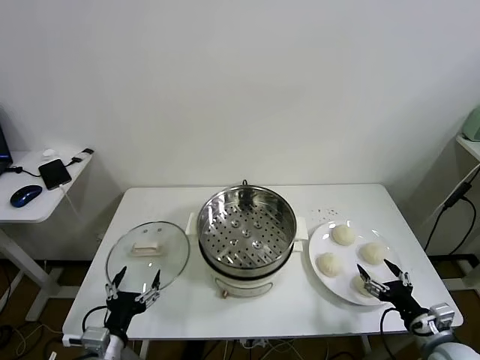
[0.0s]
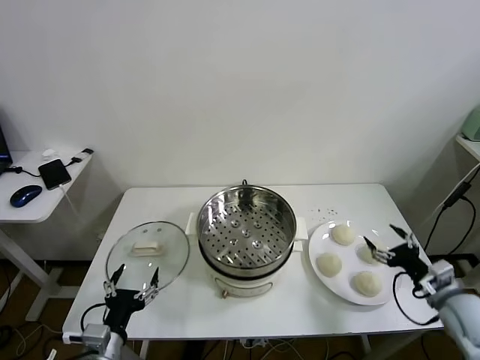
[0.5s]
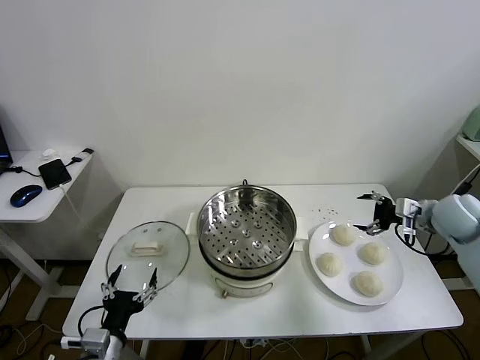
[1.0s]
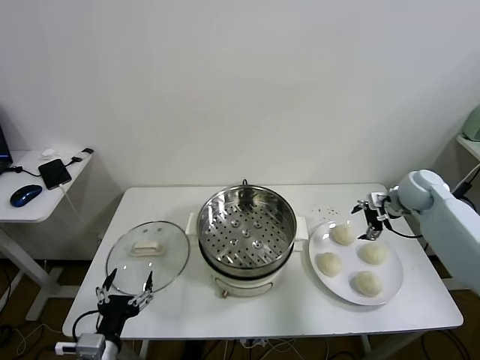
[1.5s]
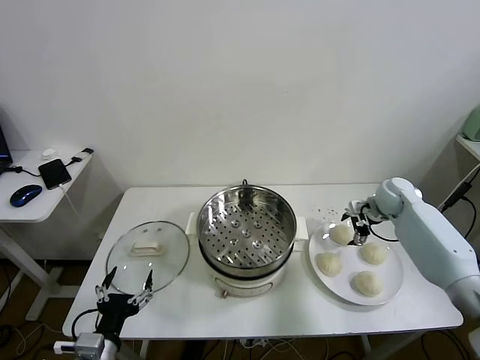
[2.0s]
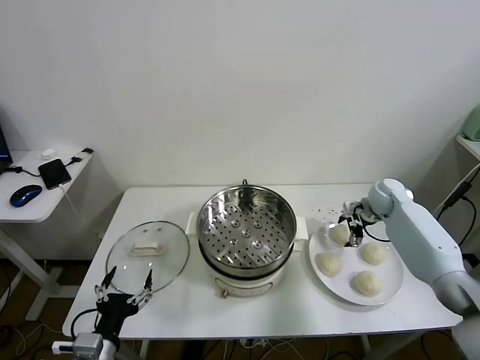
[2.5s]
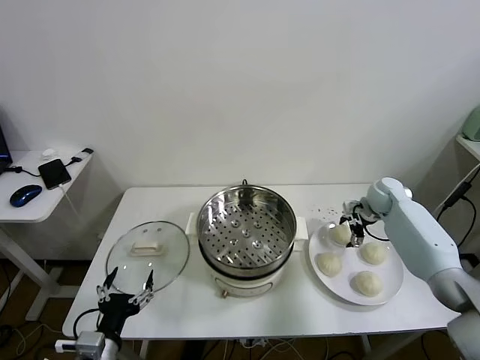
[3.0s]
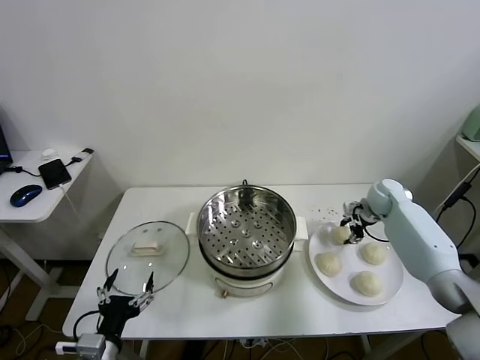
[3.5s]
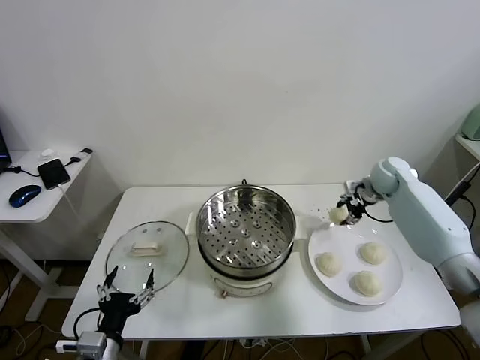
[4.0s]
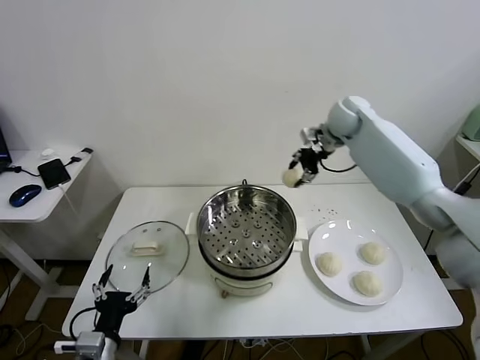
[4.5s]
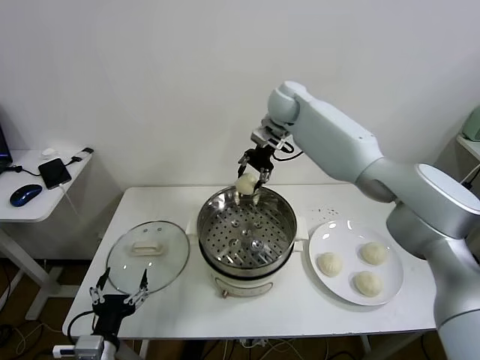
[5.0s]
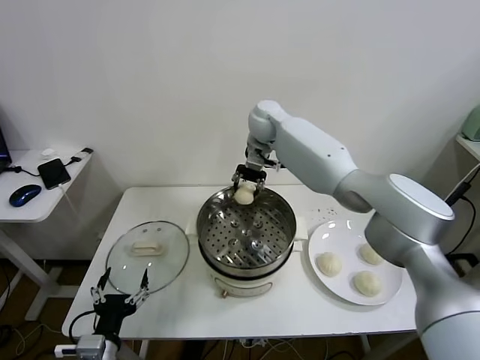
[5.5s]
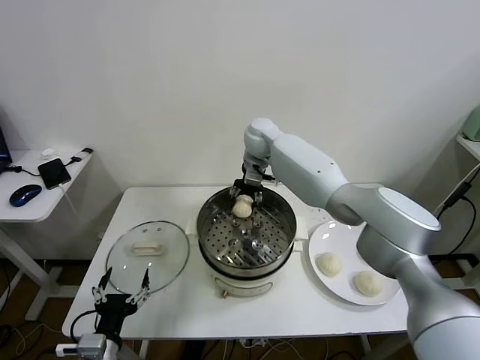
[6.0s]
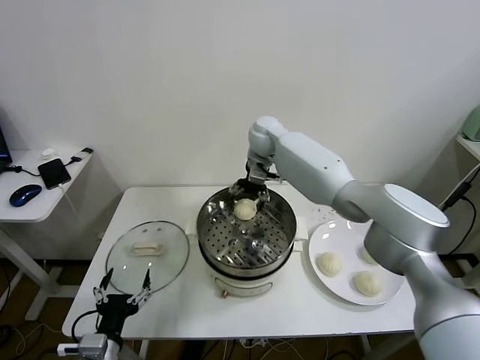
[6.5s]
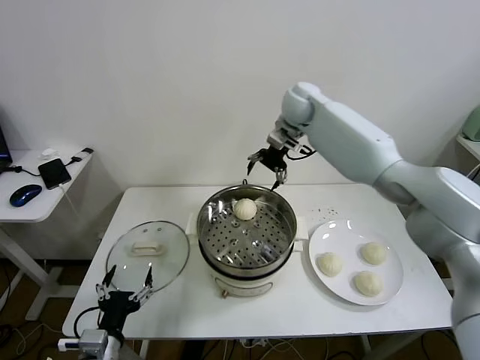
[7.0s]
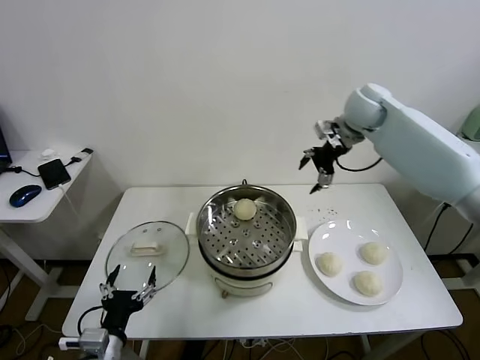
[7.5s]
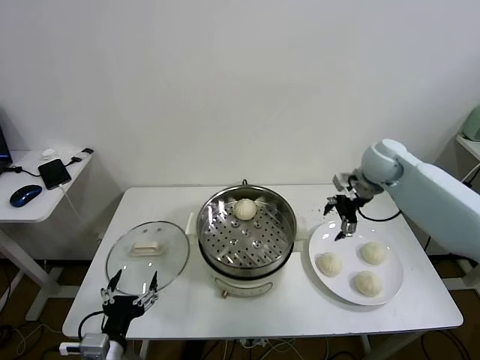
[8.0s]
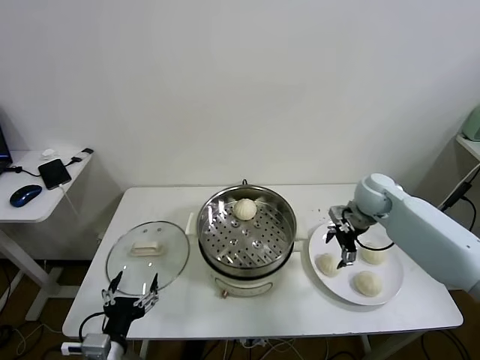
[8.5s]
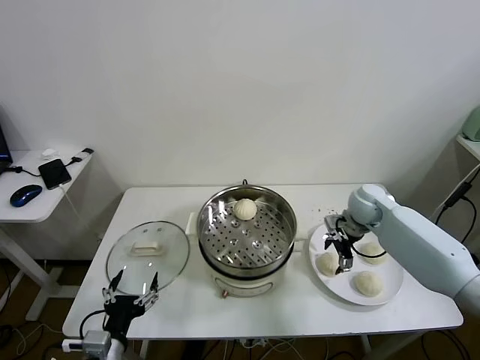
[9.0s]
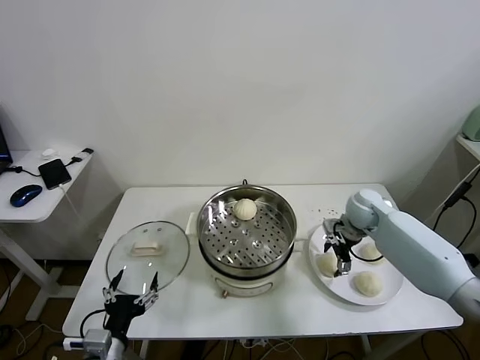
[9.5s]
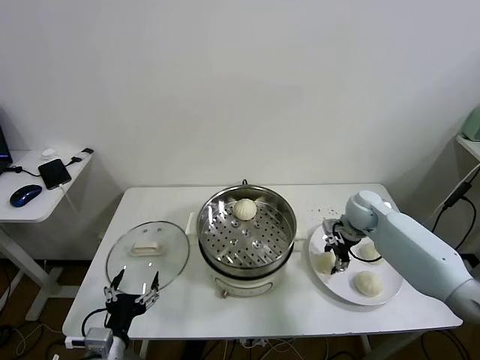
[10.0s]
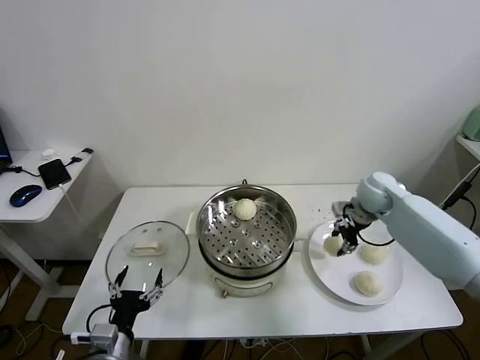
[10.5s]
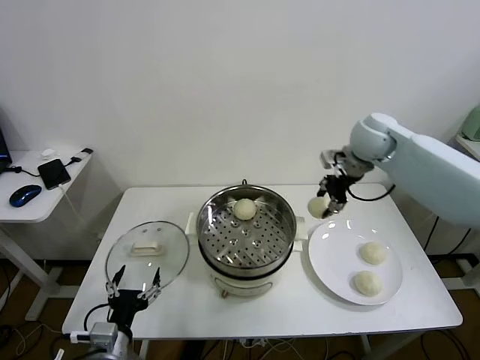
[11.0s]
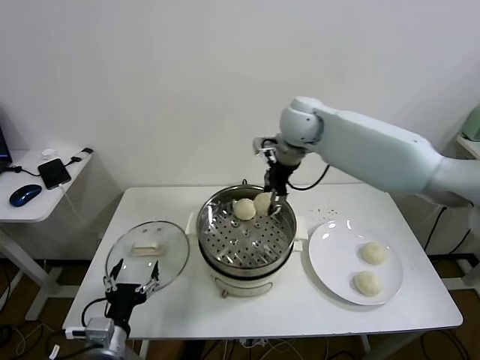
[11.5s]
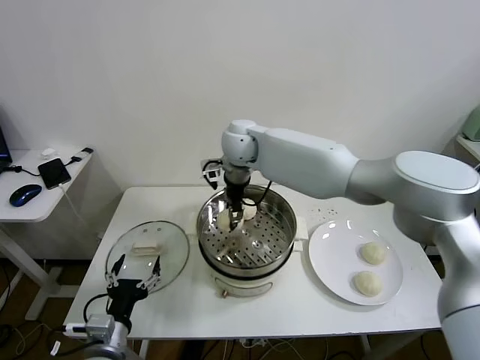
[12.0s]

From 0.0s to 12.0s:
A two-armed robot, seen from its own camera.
Task of the whole recording: take steamed baozi put them in steamer.
Step, from 0.0s to 3.0s: Grasp the baozi in the plate with right gripper.
Step, from 3.5s to 6.0s: Place the baozi on the steamer with right gripper.
Step, from 6.5s to 9.5s: Grasp the baozi in the plate with right gripper.
From 2.0s to 4.0s: The right gripper travels upward by approximately 10 cm, and closes up.
From 4.0s to 6.0s: The right gripper is displaced to the left by some 30 cm.
From 6.0s to 8.0s: The right gripper travels to the right by some 30 cm, and opens.
From 8.0s to 10.0s: The right gripper travels downward by approximately 15 cm, and closes its fingers.
From 10.0s to 12.0s: The right gripper travels to the left and upward by roughly 40 cm.

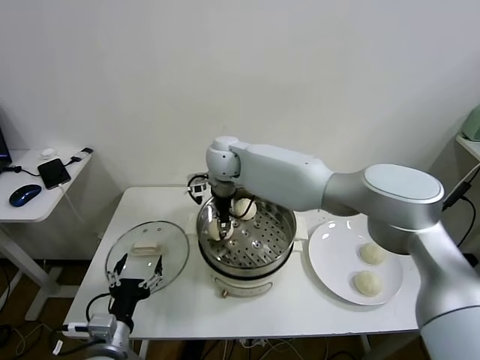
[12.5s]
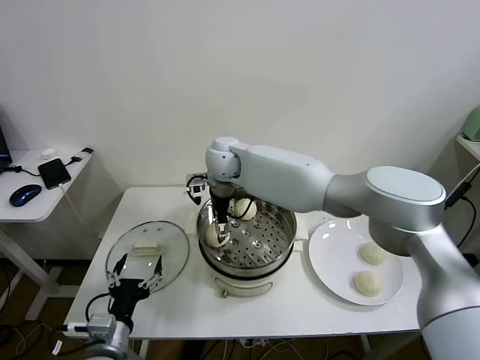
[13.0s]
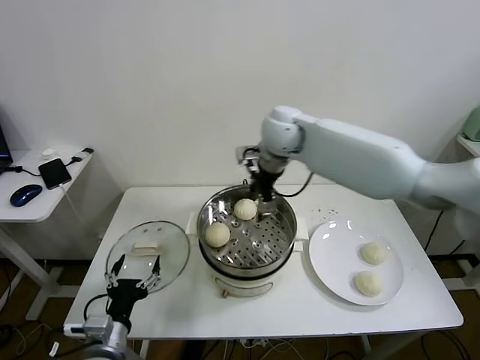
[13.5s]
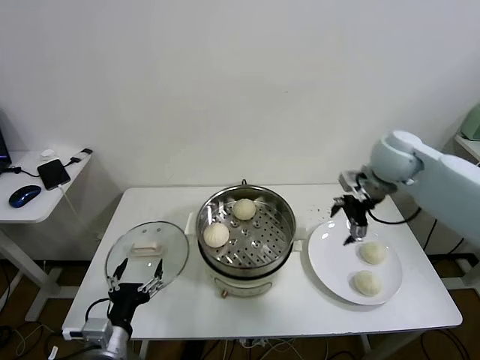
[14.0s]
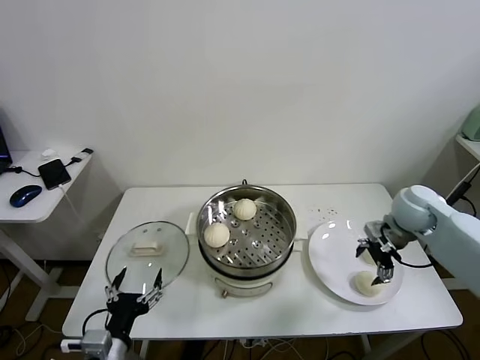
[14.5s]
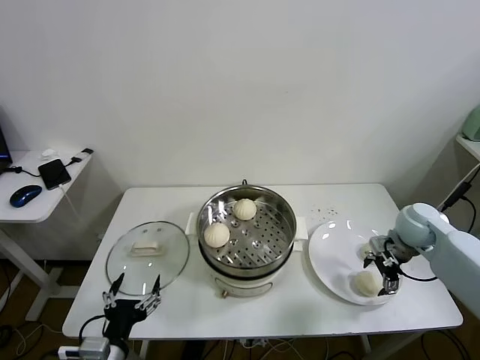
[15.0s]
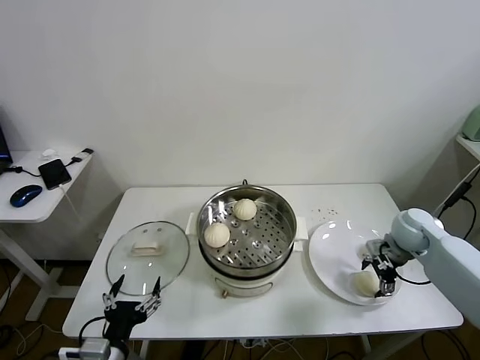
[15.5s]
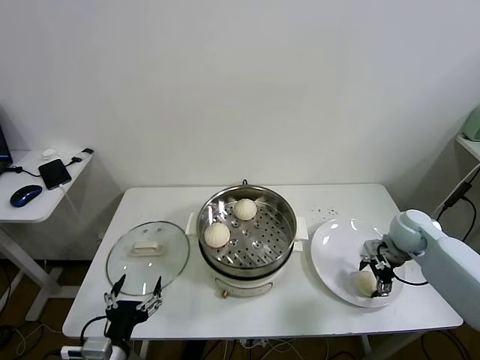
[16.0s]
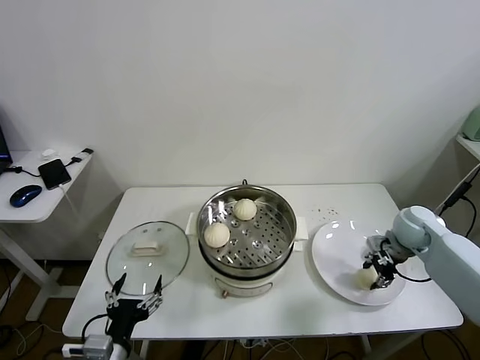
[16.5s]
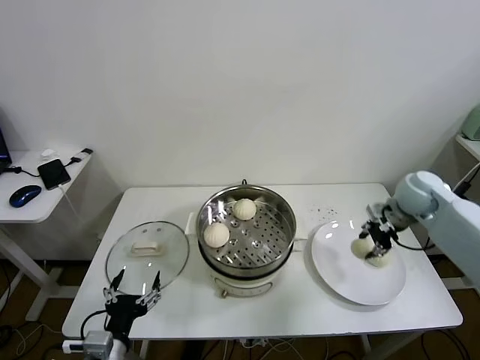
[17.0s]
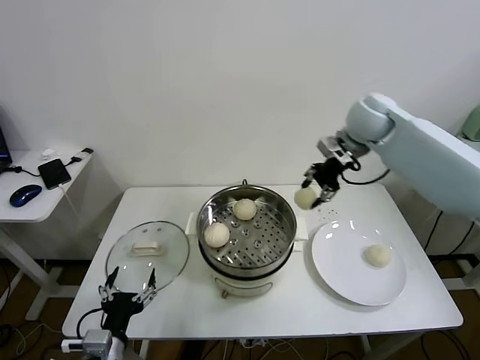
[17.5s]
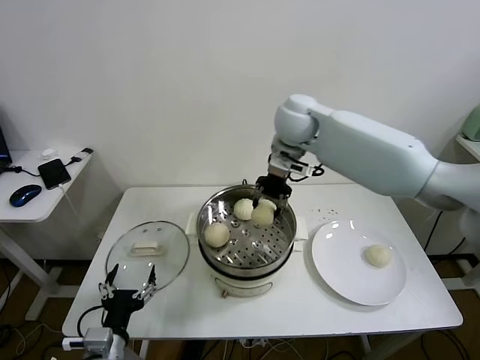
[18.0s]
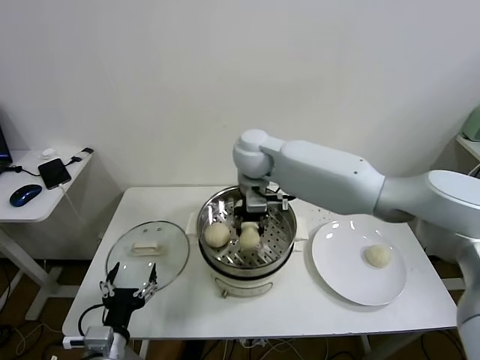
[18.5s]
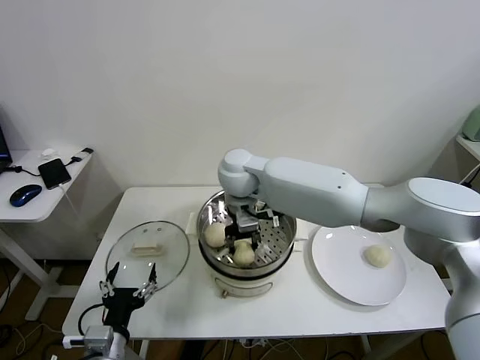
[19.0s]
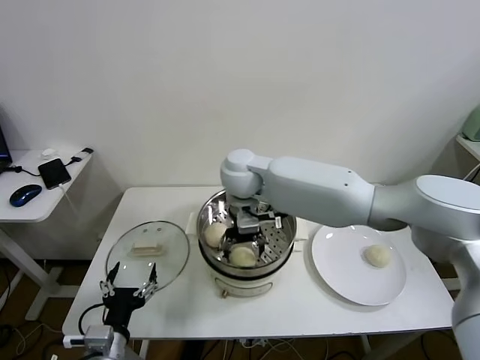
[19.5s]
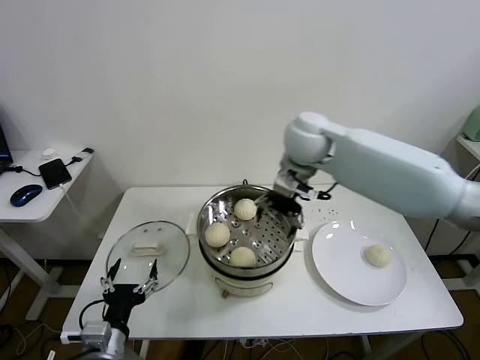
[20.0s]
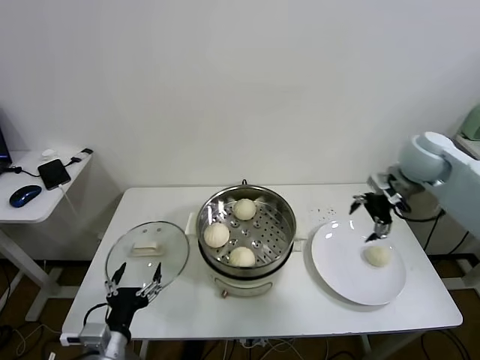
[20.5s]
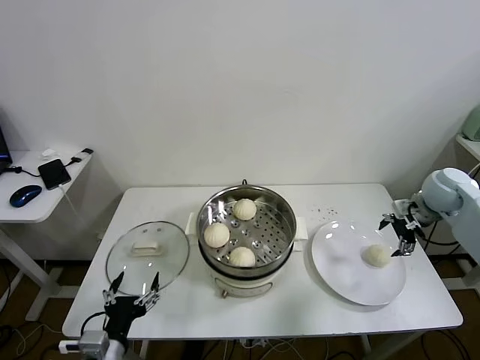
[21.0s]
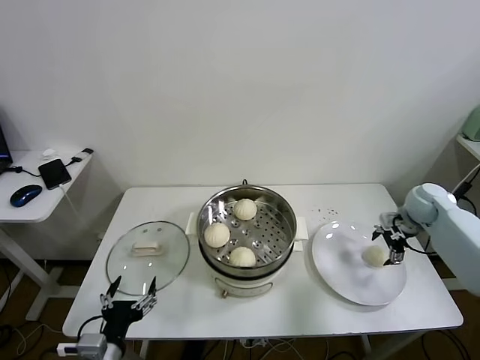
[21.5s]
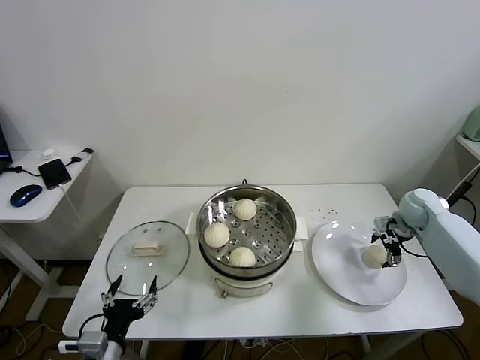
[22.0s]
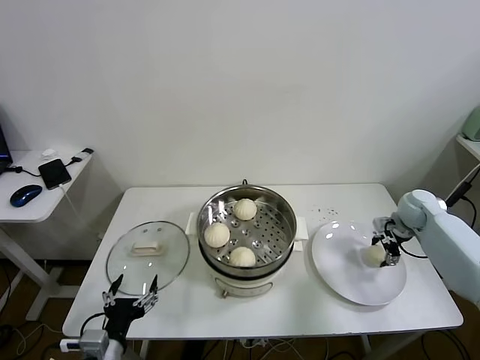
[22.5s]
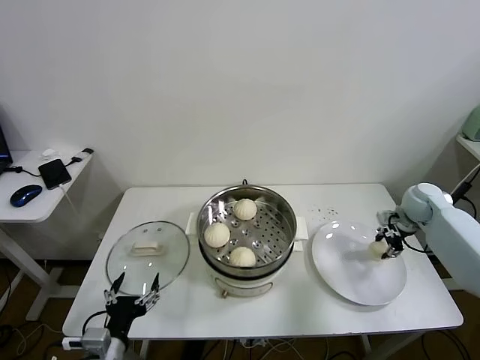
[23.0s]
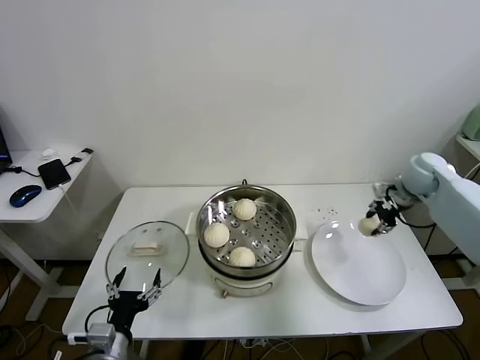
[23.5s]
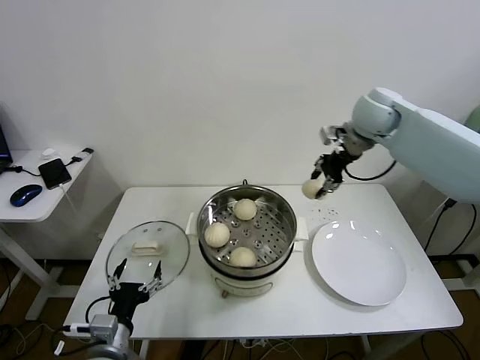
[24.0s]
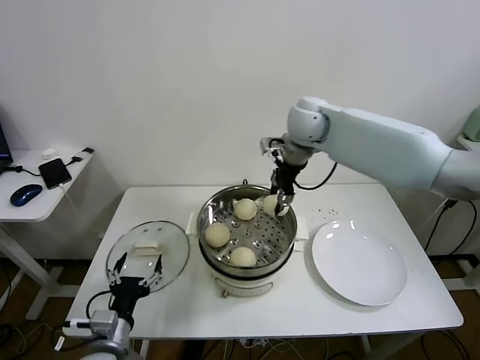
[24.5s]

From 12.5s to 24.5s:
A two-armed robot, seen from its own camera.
Task of the whole recording: take steamed baozi put them in steamer.
Step, from 13.0s to 16.0s: Grasp the baozi in the plate with right gripper.
Step, from 16.5s to 19.5s: Place the baozi on the steamer with right gripper.
Step, from 20.0s to 22.5s: Grasp the baozi in the plate with right gripper.
From 12.5s to 14.5s: The right gripper moves to the right, some 40 cm, and opens up.
From 14.5s to 16.5s: The right gripper moves downward, roughly 5 cm, and closes.
From 16.5s to 18.5s: The right gripper moves to the left and upward, about 40 cm.
From 18.5s to 20.5s: The right gripper travels to the right by some 35 cm, and opens up.
From 20.5s to 22.5s: The right gripper goes approximately 20 cm downward and to the right, and closes its fingers.
From 22.5s to 24.5s: The right gripper travels to the left and upward by about 40 cm, and closes its fingers.

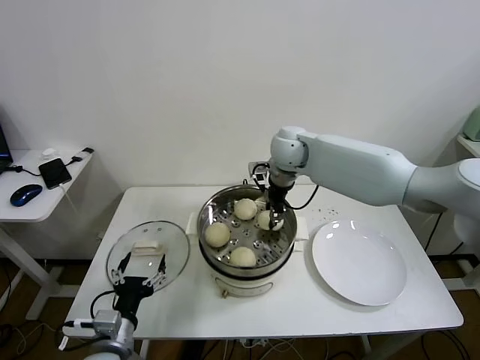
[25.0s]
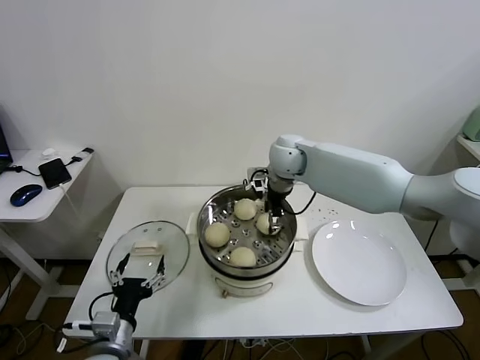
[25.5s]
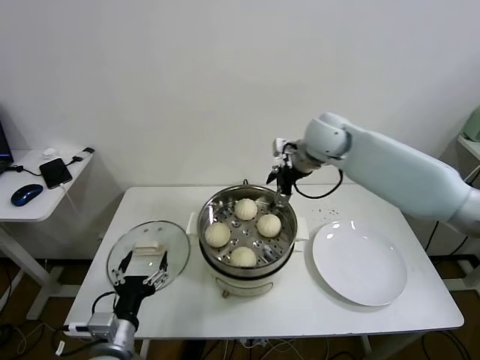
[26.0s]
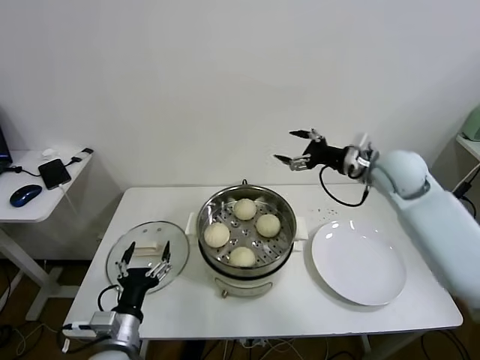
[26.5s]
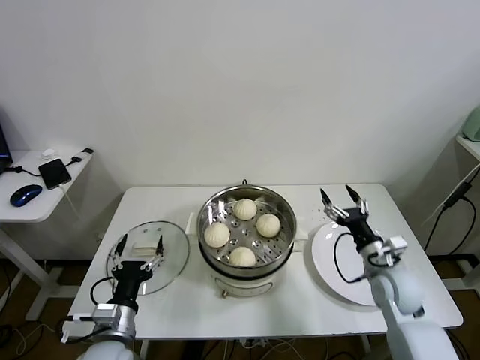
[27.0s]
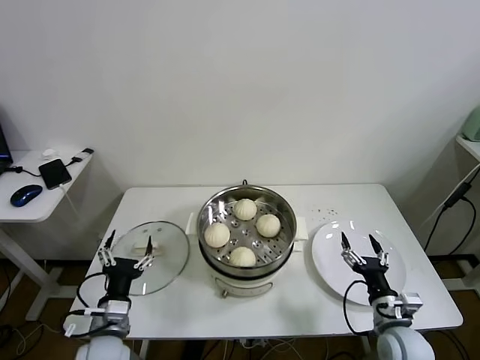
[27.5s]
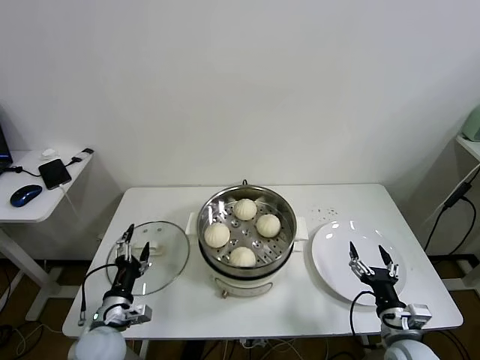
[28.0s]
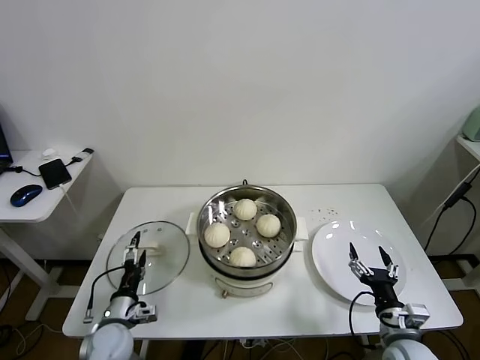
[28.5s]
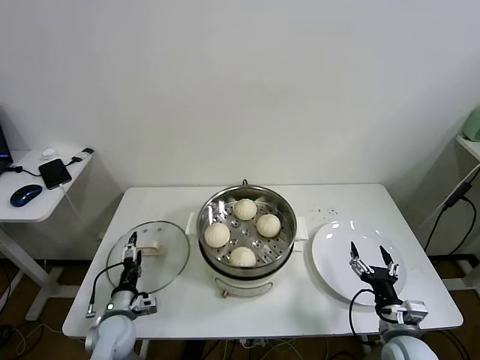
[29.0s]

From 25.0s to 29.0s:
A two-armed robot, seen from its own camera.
Task of the whole recording: take steamed baozi put them in steamer.
From 25.0s to 27.0s: The right gripper travels to the right, backward and downward by approximately 40 cm, and opens.
From 27.0s to 29.0s: The left gripper moves downward, forward and to the left, some 15 cm, while the right gripper heads backward and downward, covering about 15 cm.
